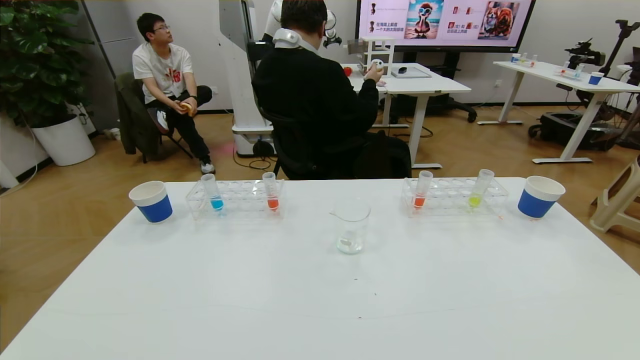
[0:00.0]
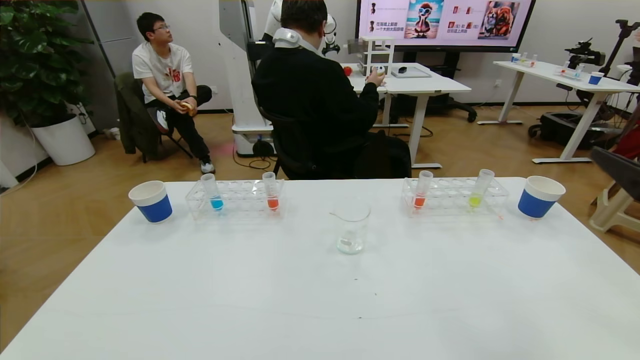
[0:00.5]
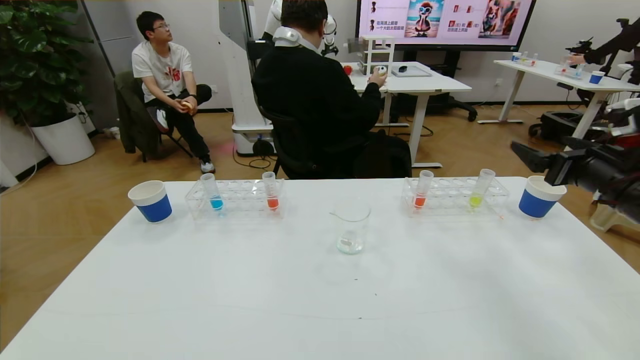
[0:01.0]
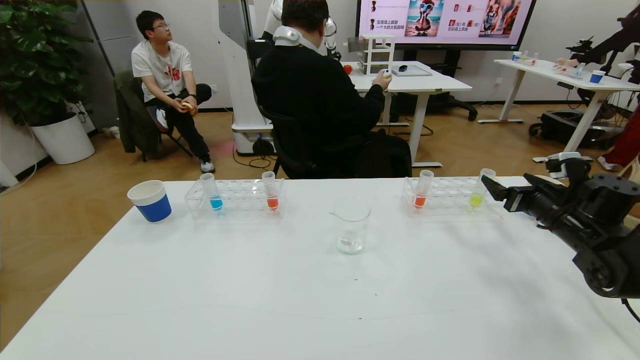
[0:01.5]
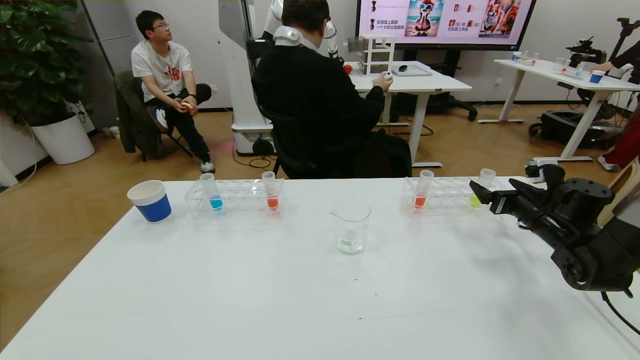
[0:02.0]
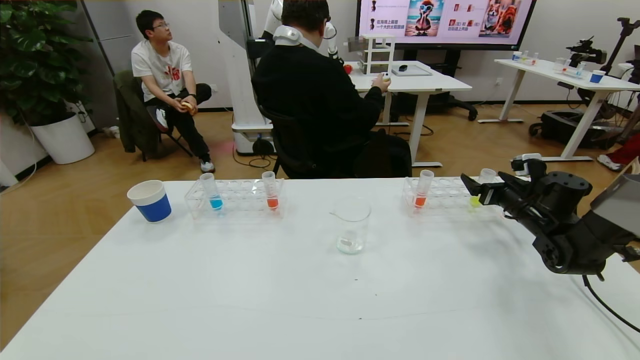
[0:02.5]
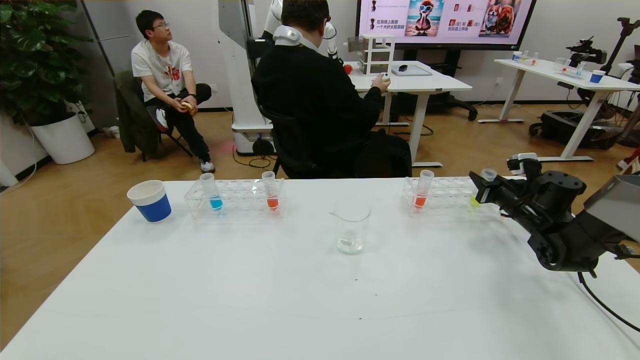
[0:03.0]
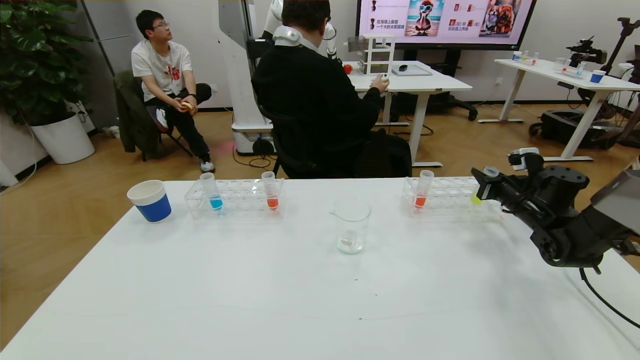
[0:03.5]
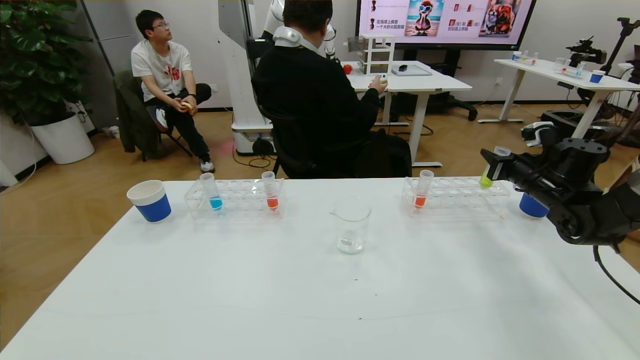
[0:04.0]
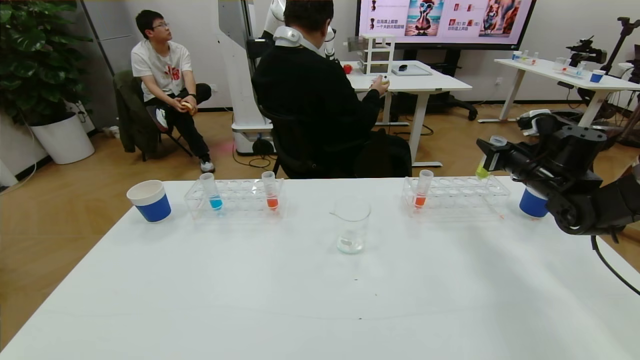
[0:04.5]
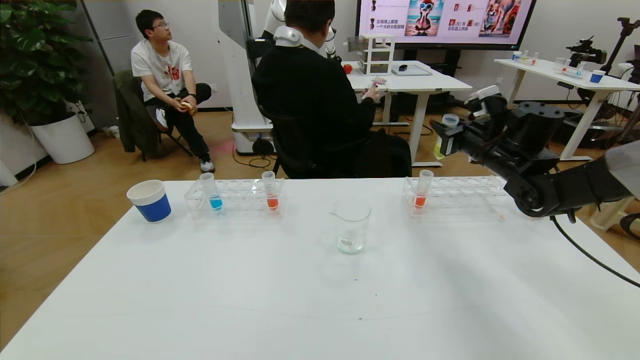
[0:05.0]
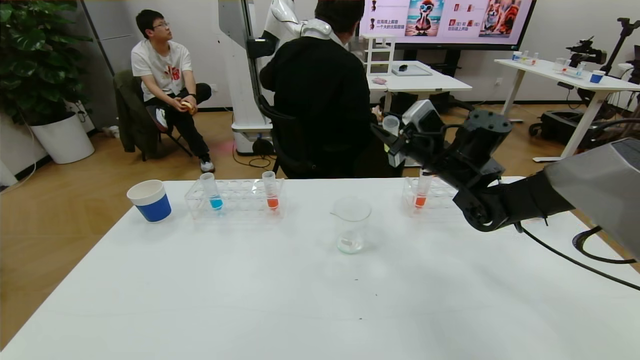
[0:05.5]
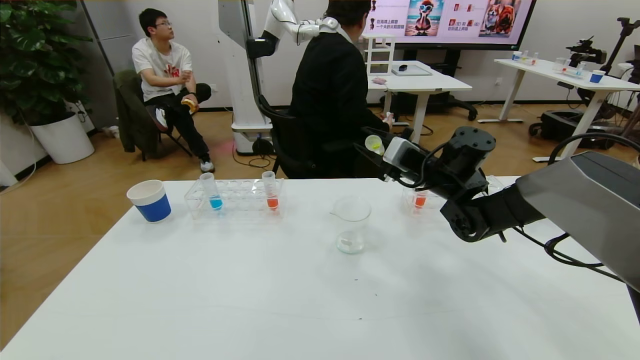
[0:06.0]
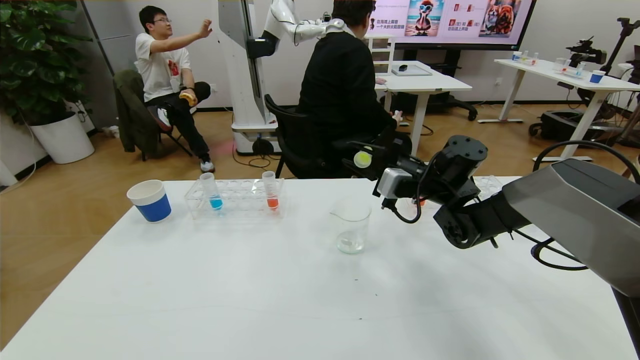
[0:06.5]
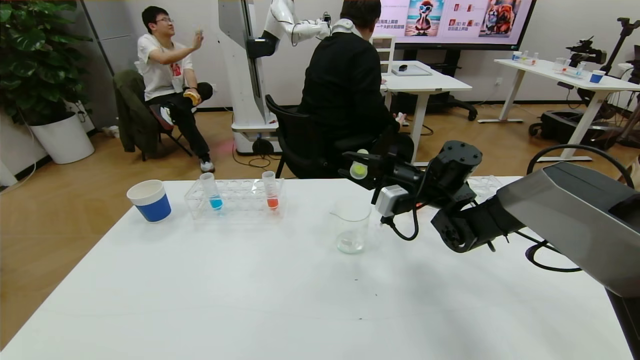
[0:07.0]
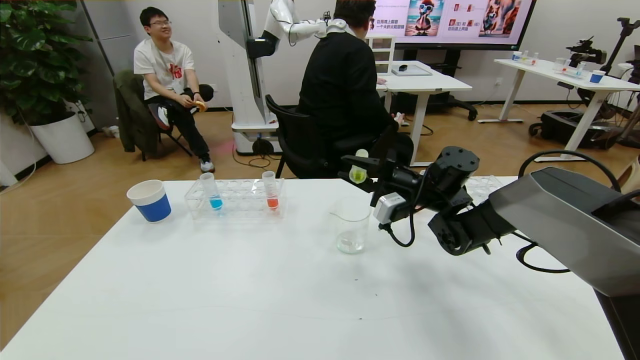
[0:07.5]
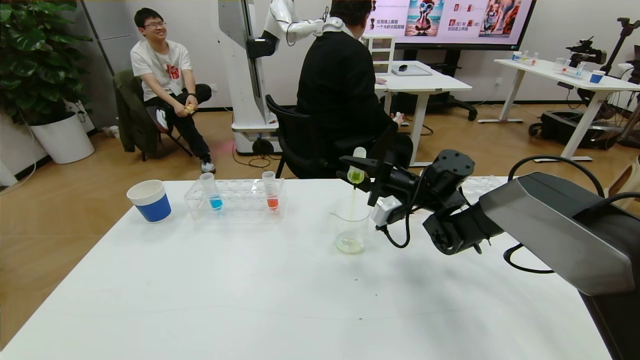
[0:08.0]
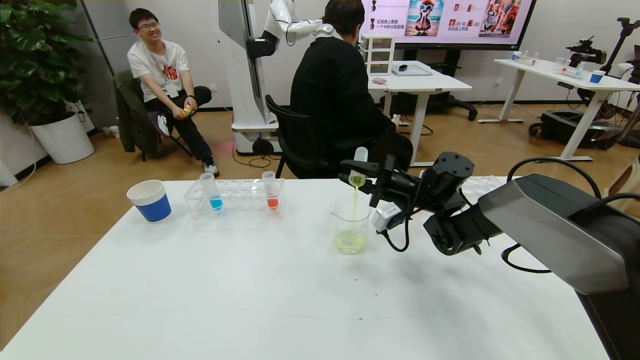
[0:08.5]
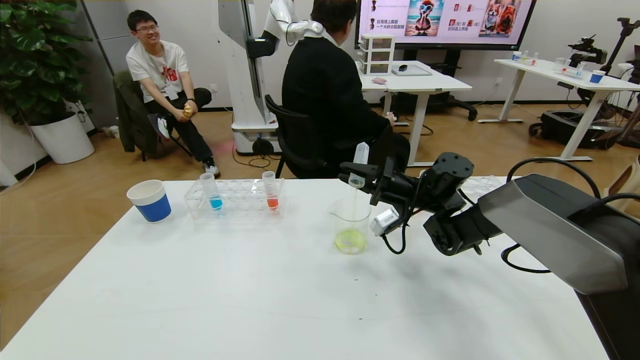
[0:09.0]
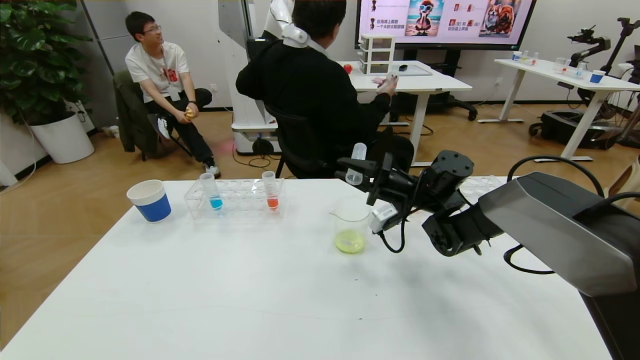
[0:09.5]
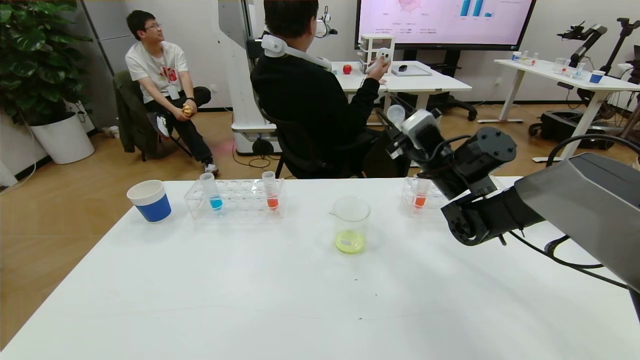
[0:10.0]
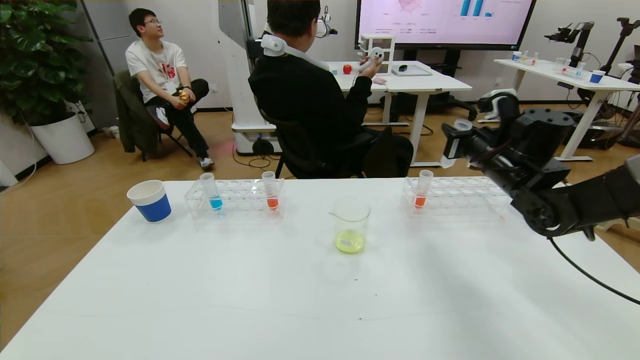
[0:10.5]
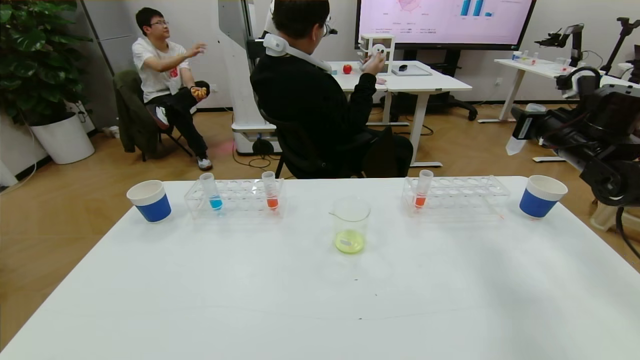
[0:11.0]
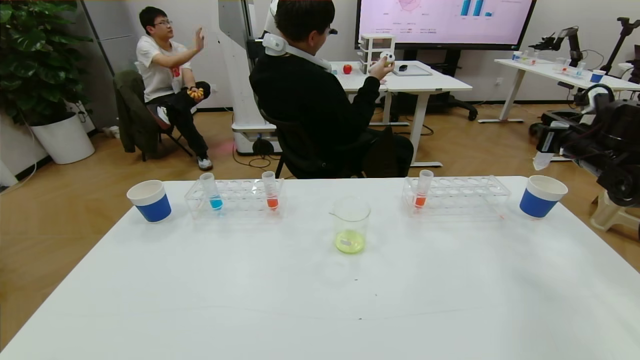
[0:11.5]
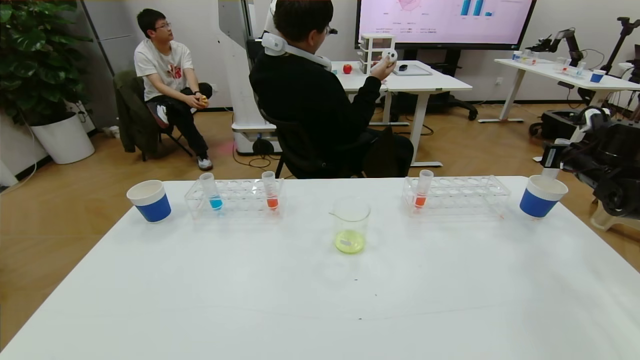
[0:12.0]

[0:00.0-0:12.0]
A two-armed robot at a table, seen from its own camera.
Task of the whole recording: pick up the test tube with yellow pigment and the test tube with blue pigment by grippers and pour them into the beaker.
0:00.0 to 0:02.0: The right gripper travels forward by some 40 cm.
0:02.0 to 0:04.0: The right gripper moves upward, some 5 cm, and closes up.
0:04.0 to 0:06.0: The right gripper travels to the left by approximately 20 cm.
0:08.0 to 0:10.0: The right gripper is displaced upward by about 5 cm.
0:10.0 to 0:12.0: The right gripper moves to the right, about 30 cm.

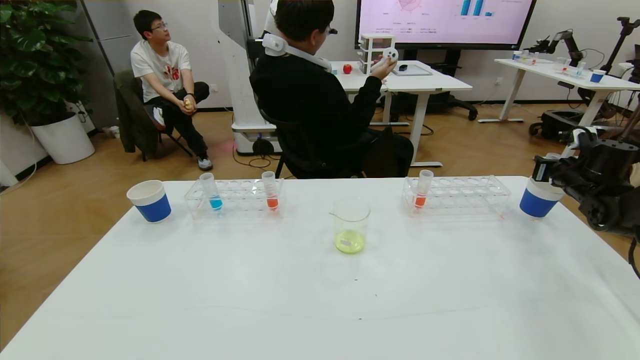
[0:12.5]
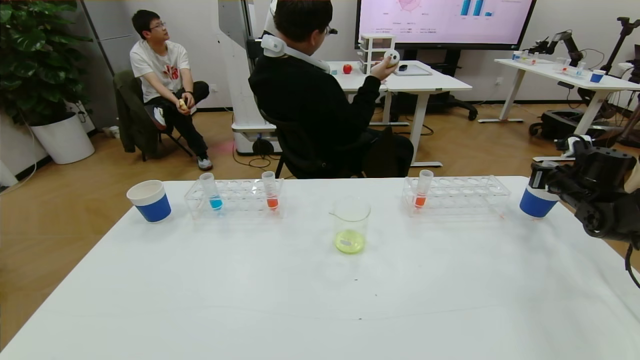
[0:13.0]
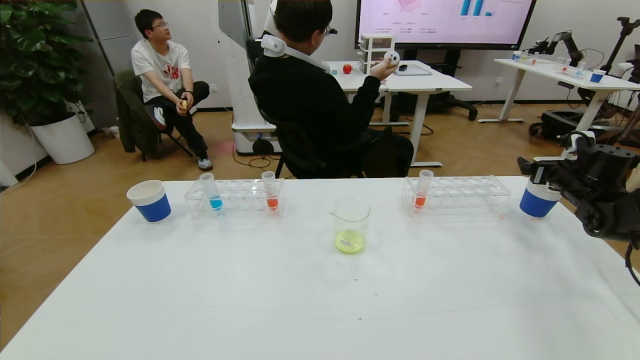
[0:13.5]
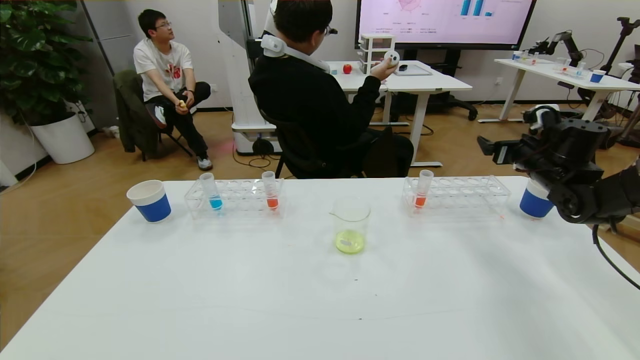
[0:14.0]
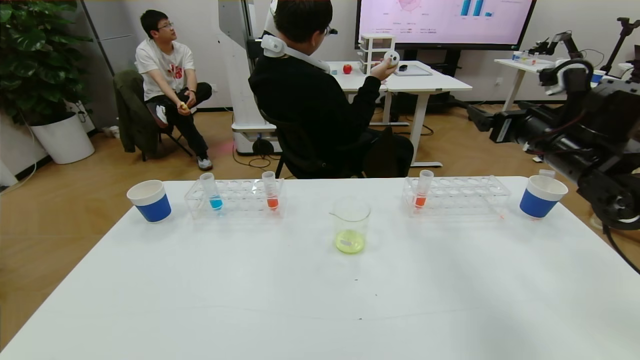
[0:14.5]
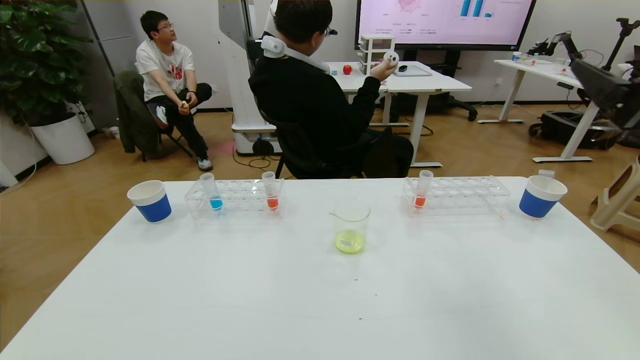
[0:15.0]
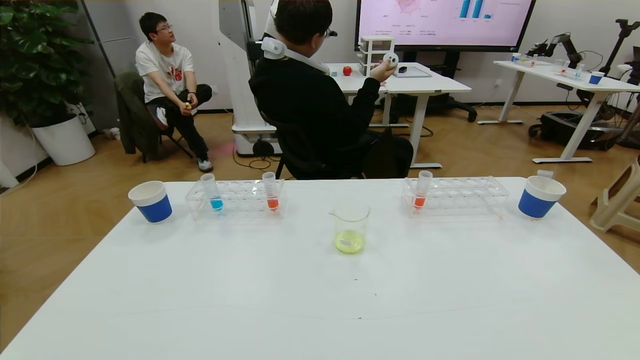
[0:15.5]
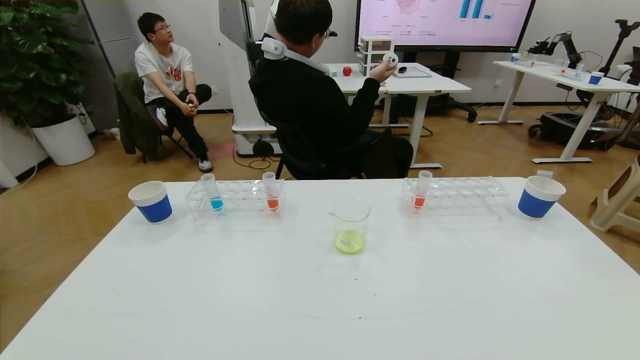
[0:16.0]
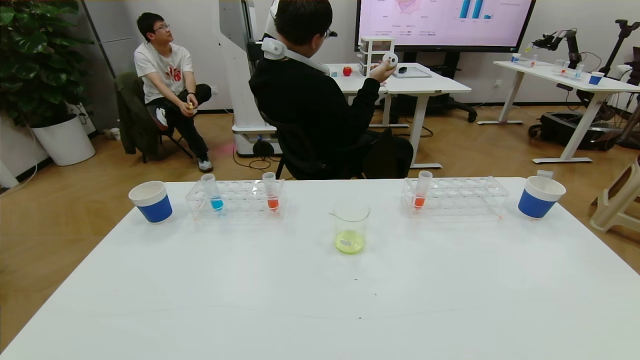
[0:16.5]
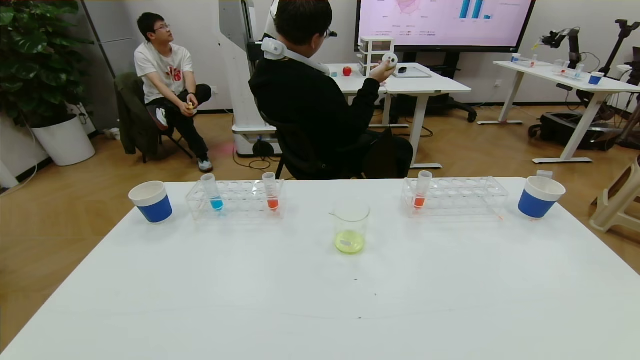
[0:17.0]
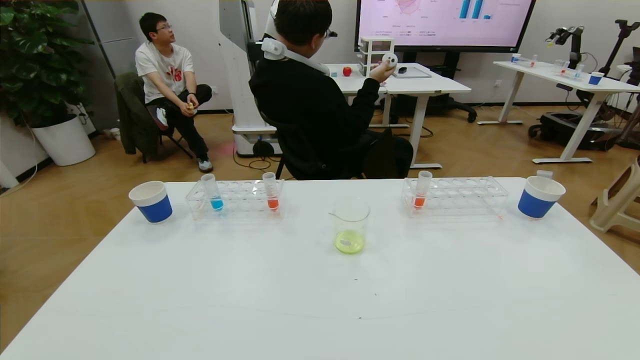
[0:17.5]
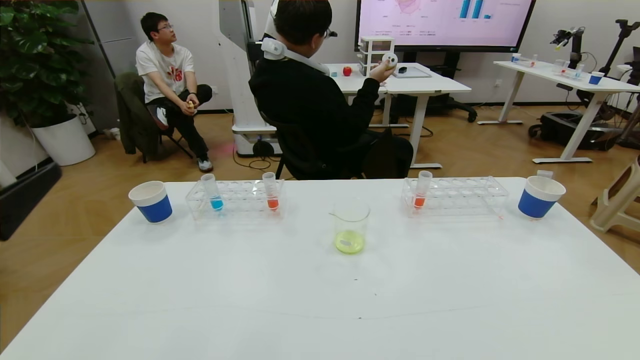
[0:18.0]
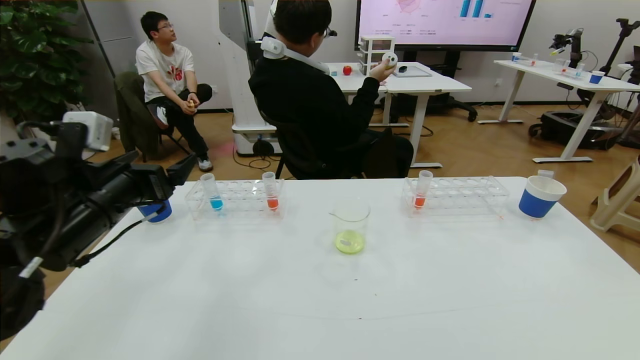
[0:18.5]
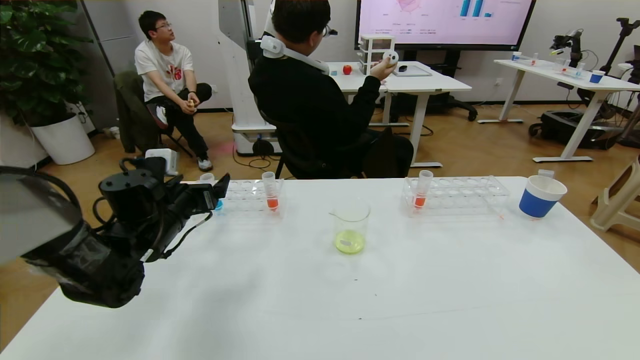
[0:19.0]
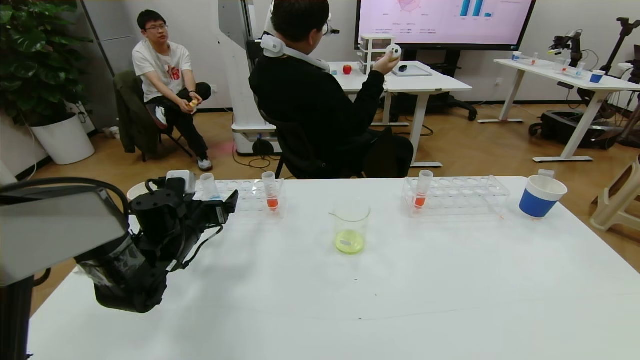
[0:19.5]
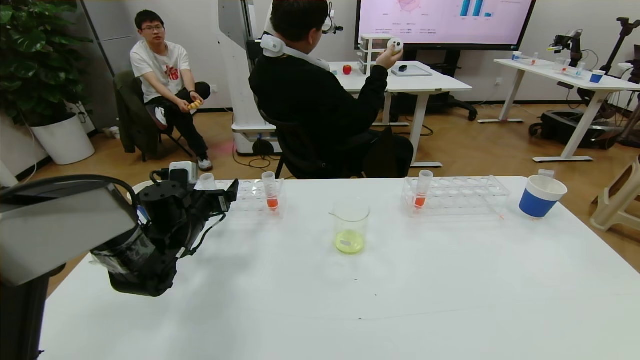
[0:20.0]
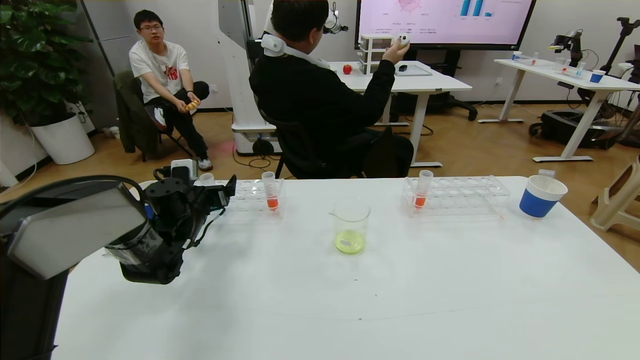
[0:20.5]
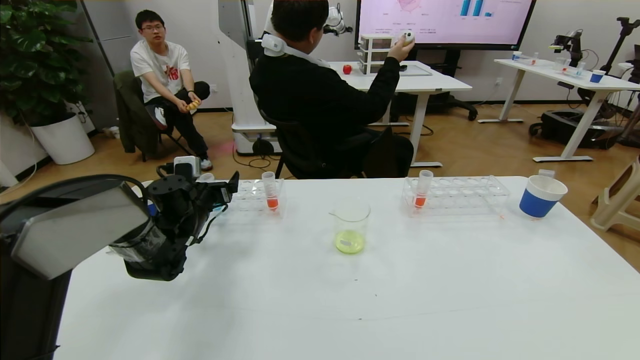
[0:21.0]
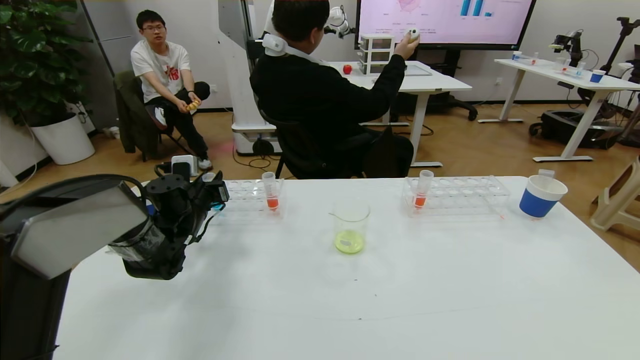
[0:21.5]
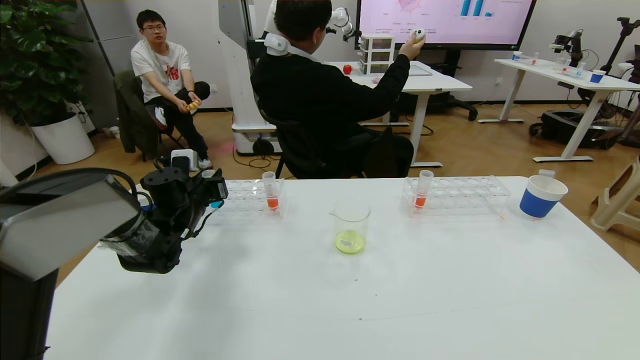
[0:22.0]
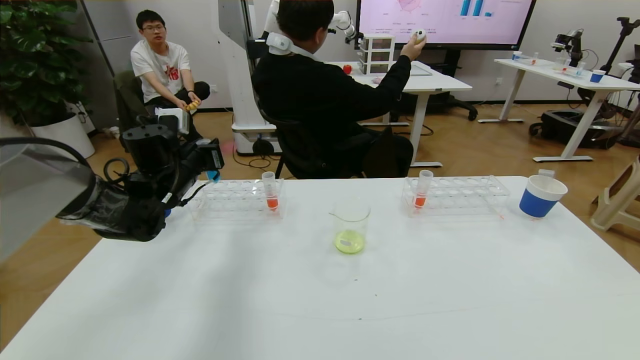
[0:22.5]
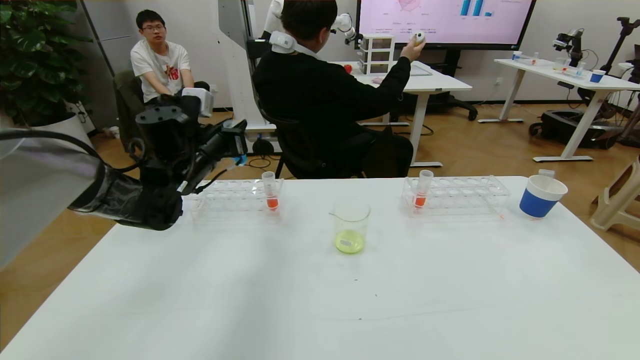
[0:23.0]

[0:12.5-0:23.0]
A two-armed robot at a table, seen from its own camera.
Task of the whole recording: pick up the test tube with yellow pigment and the test tube with blue pigment by grippers and pour them into the beaker.
Step, 0:12.5 to 0:17.5: Pour the yellow reagent into the graduated cylinder and place the test tube into the paper cup.
0:12.5 to 0:14.5: The right gripper moves to the left, upward and backward, roughly 25 cm, and opens.
0:14.5 to 0:16.5: The right gripper travels backward by roughly 40 cm.
0:16.5 to 0:19.0: The left gripper travels forward by some 35 cm.
0:19.0 to 0:21.0: The left gripper heads forward and downward, covering roughly 10 cm.
0:21.0 to 0:23.0: The left gripper moves upward, approximately 15 cm, and closes.
